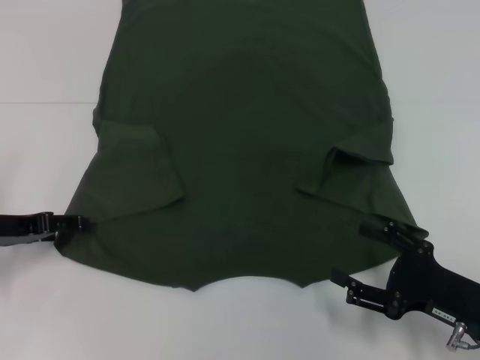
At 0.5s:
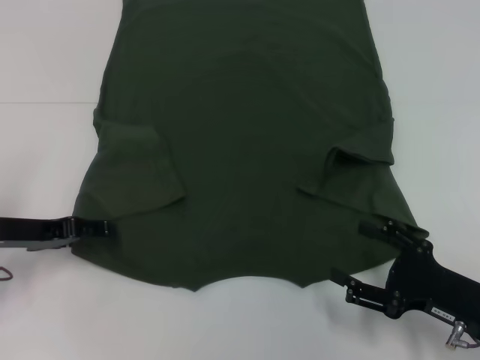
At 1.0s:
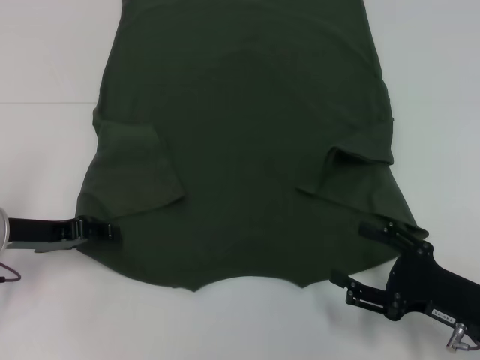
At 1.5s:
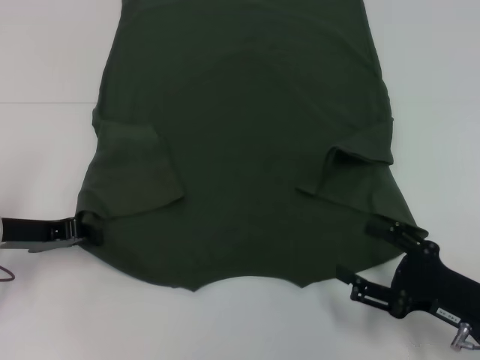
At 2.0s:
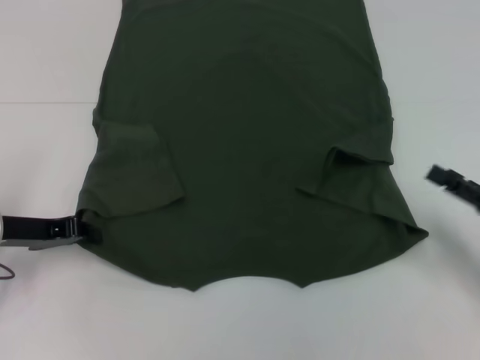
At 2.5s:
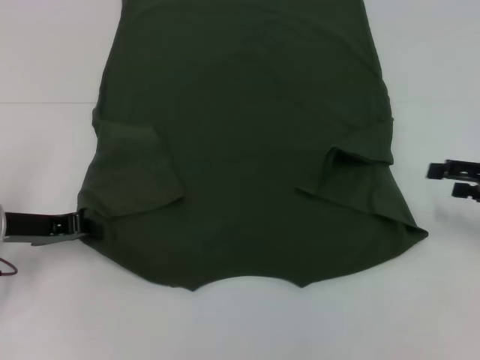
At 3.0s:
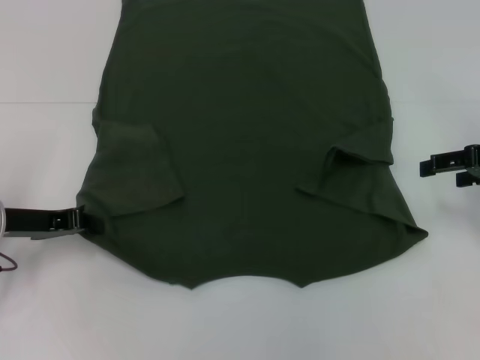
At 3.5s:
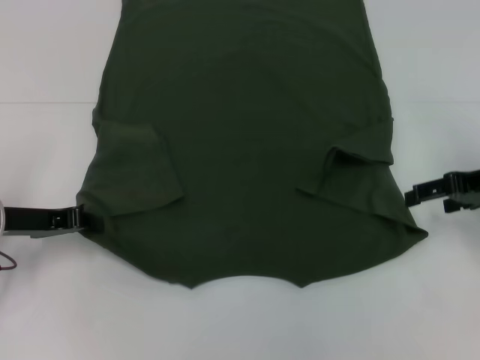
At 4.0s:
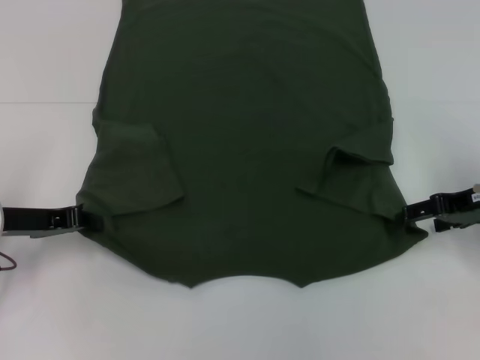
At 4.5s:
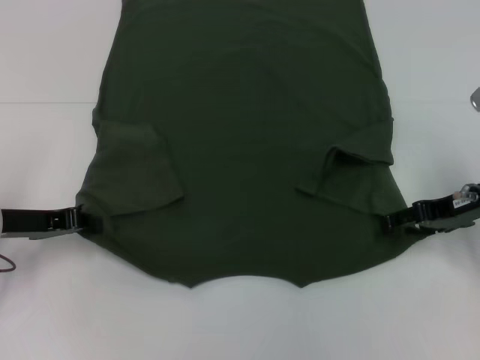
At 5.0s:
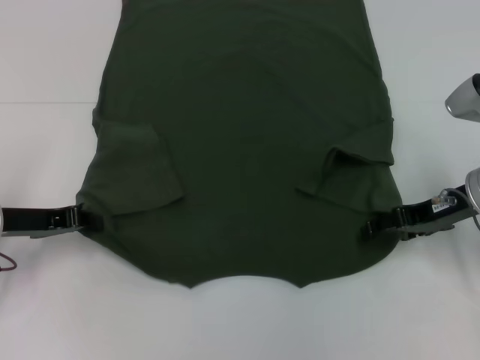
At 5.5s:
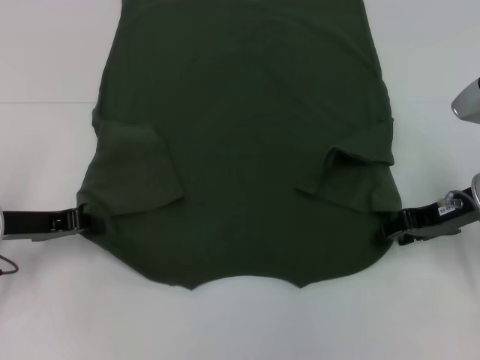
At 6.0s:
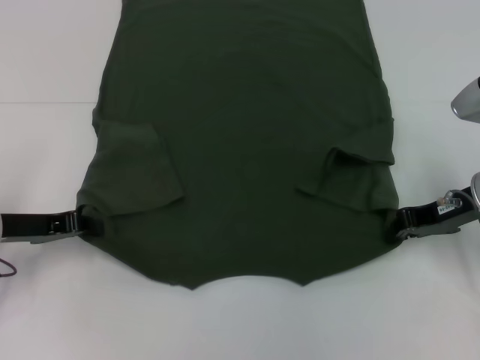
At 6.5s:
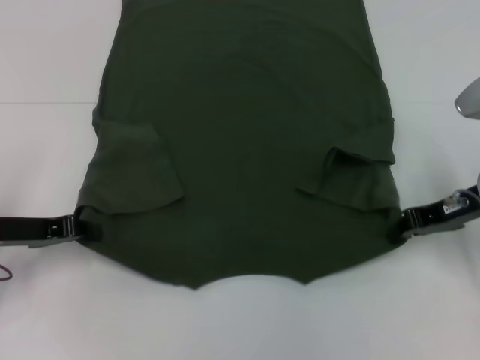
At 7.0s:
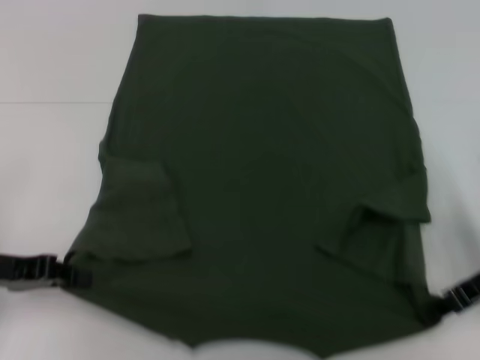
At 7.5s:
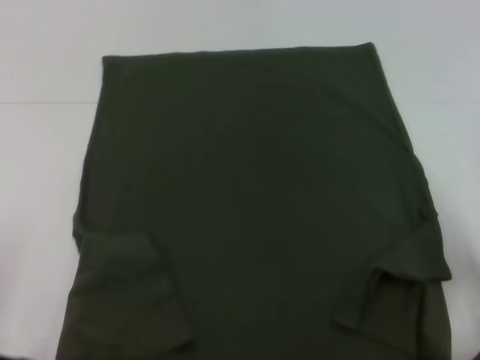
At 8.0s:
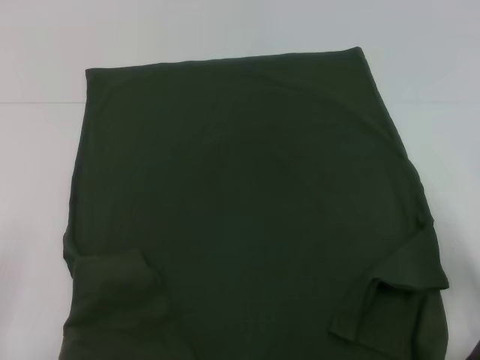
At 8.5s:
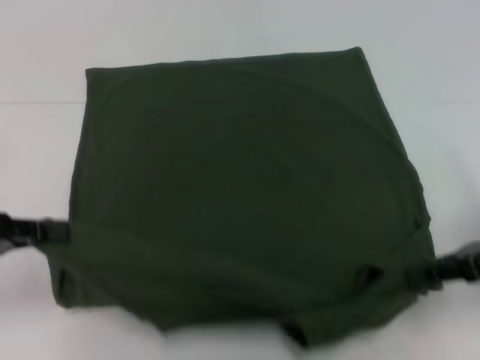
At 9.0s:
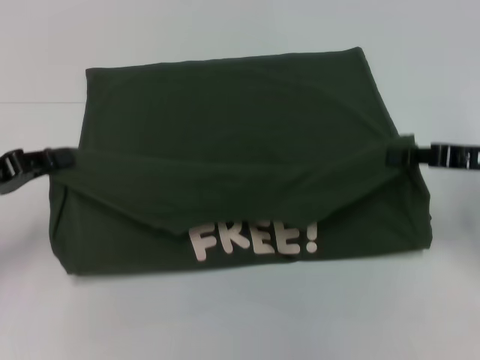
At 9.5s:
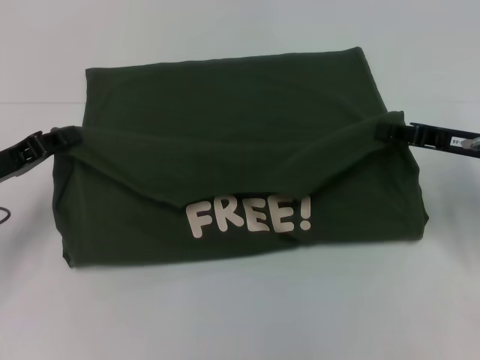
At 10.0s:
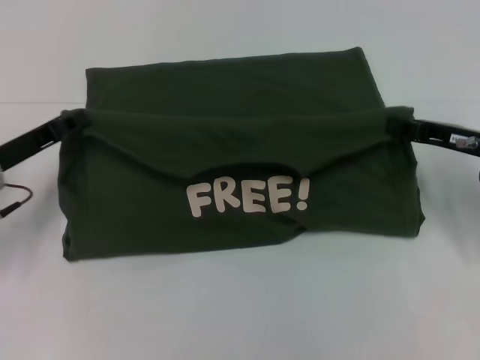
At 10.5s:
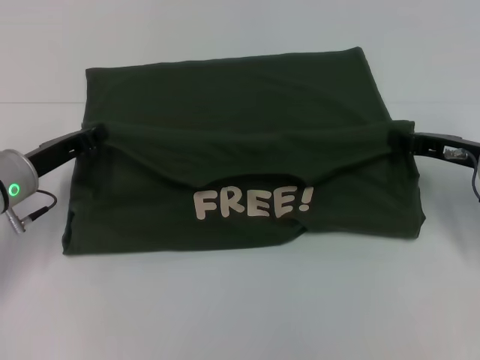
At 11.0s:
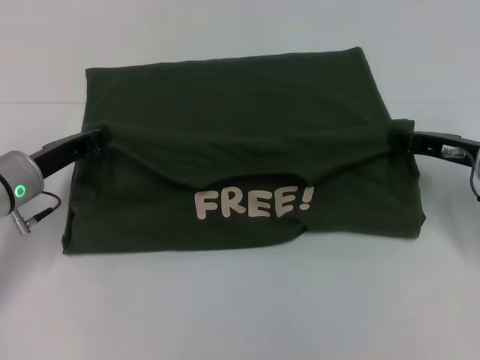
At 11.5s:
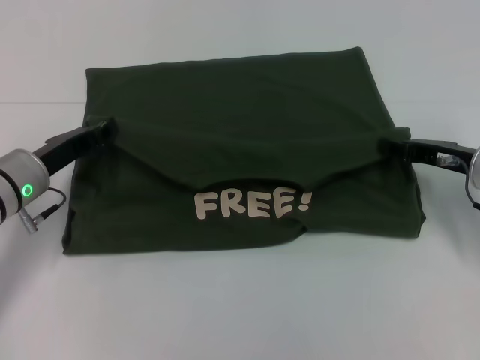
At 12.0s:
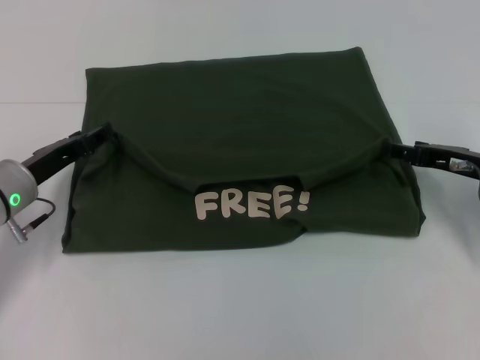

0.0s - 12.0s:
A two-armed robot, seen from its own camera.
Step, 1.5s - 5.0s: Grab the bottom right corner with your right hand.
0.0s - 2.0s: The left gripper closes up; the right gripper moves to the right, some 5 cm.
2.0s - 4.0s: The right gripper heads forward and upward, covering some 15 cm.
4.0s - 6.0s: The right gripper closes up.
6.0s - 8.0s: Both grippers travel together backward, roughly 10 cm.
8.0s - 10.0s: The two grippers go some 10 cm forward.
10.0s - 12.0s: The right gripper opens; the left gripper opens.

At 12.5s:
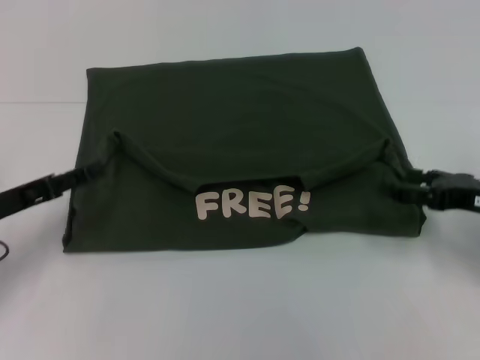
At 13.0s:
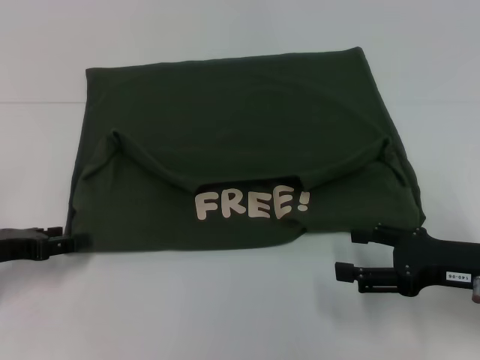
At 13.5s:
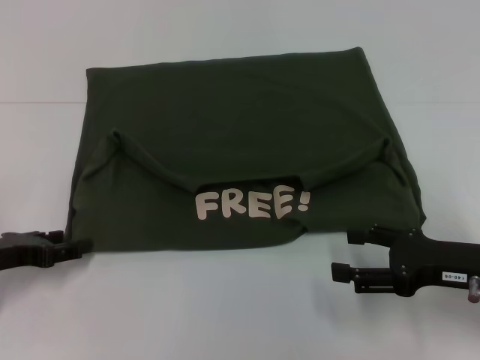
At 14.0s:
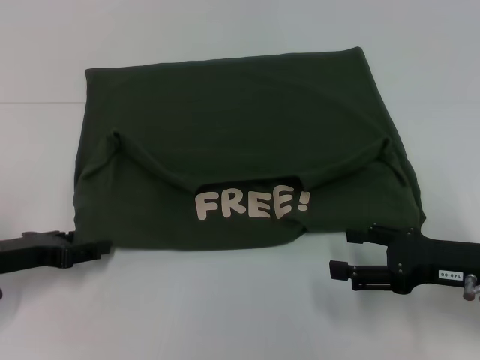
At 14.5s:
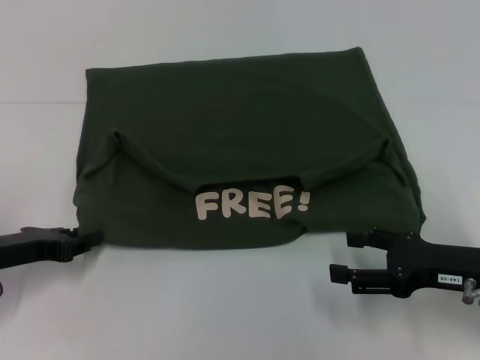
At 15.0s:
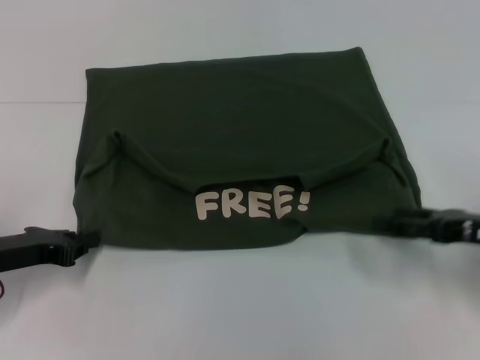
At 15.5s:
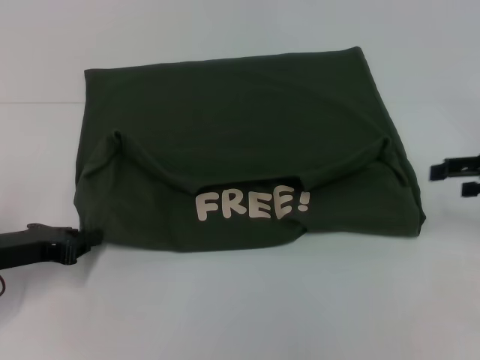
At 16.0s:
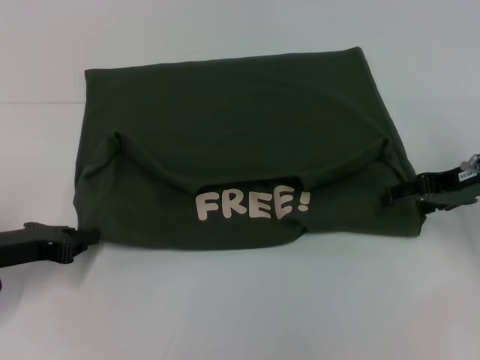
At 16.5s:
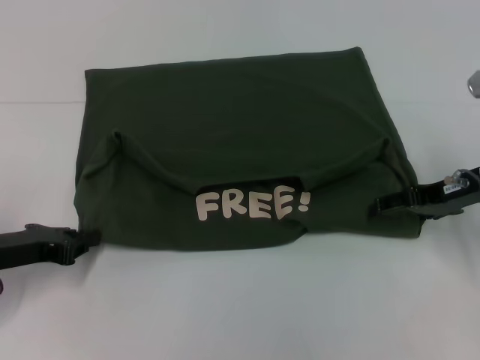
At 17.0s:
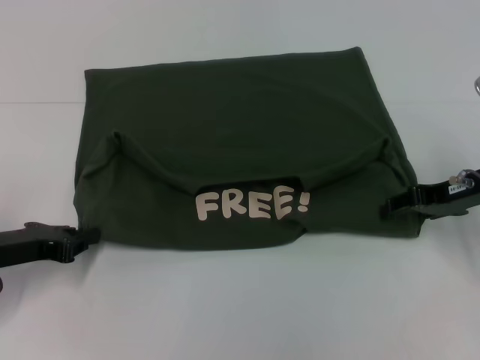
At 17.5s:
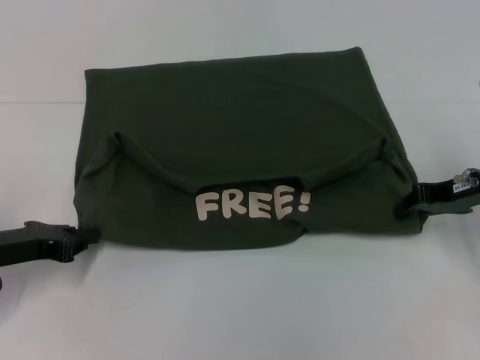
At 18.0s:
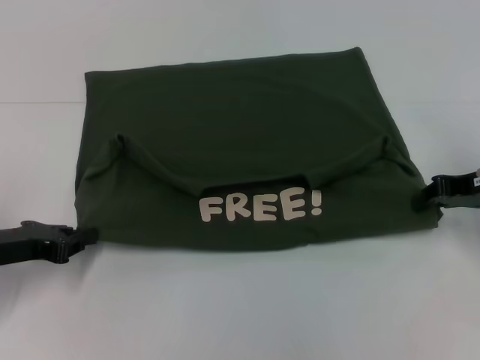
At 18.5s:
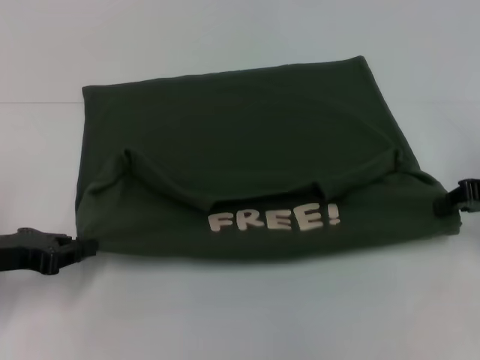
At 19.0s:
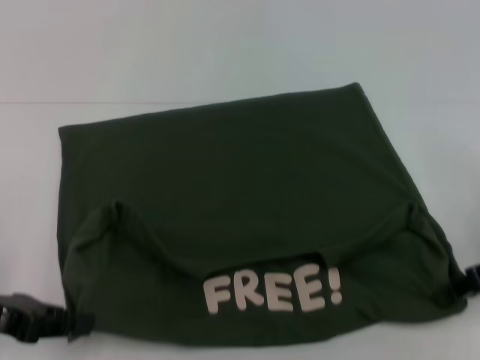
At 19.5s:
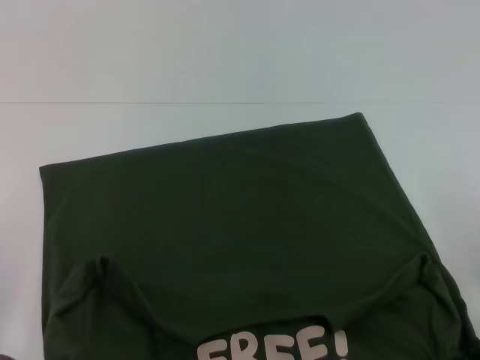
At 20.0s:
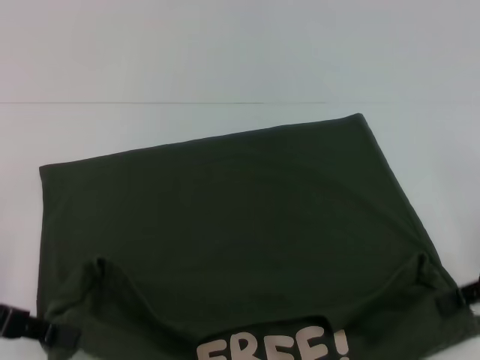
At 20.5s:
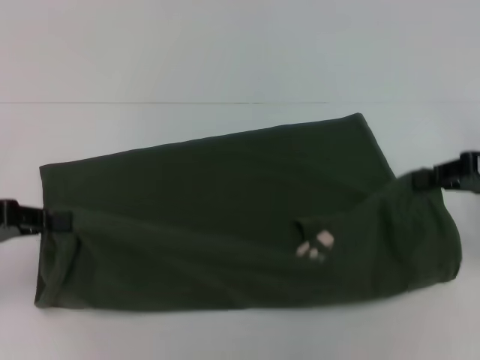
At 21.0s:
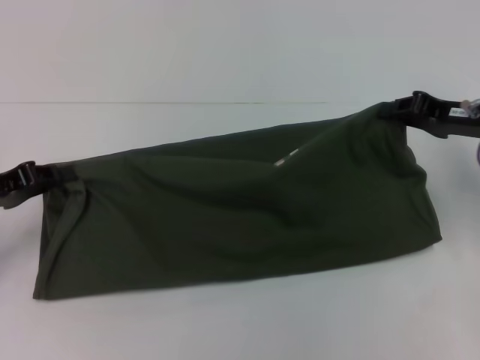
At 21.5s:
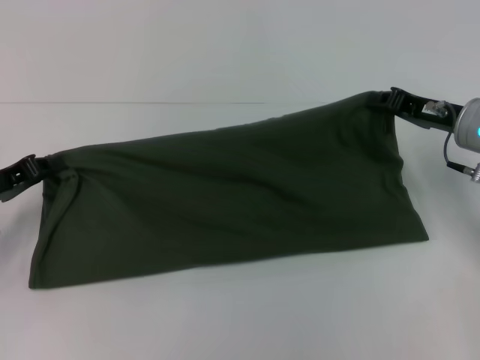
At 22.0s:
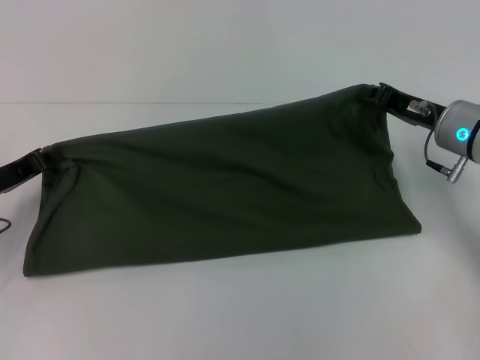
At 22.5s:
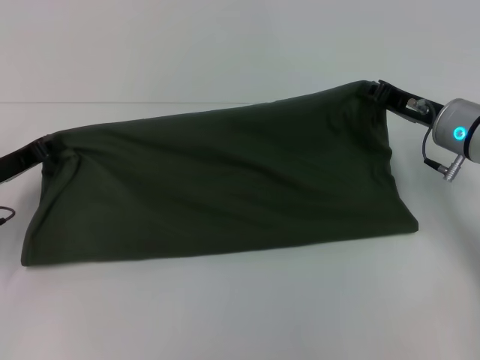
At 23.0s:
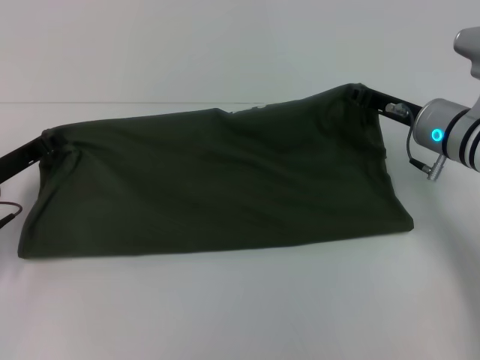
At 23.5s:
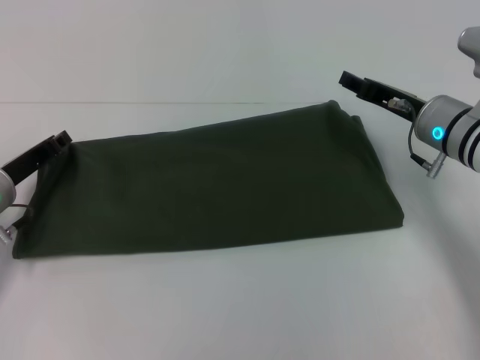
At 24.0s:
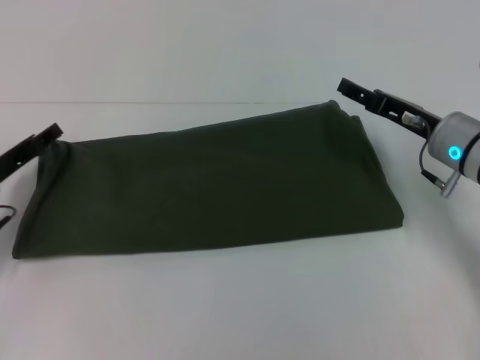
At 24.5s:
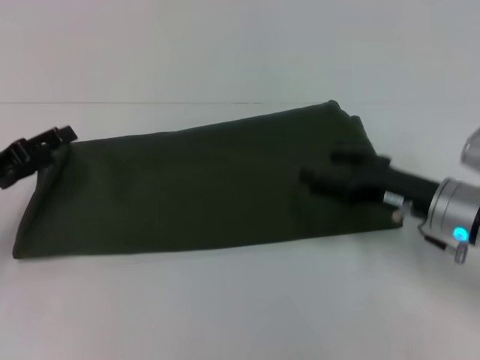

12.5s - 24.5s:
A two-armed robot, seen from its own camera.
Step, 12.5s - 19.5s: Pull the clothes with your left hand.
Step, 12.5s - 19.5s: Pull the clothes with your right hand.
12.5s - 14.5s: The right gripper shifts by about 5 cm.
14.5s - 16.5s: The right gripper shifts roughly 10 cm forward and upward, while the left gripper closes up.
16.5s - 18.5s: The right gripper is displaced to the right by roughly 5 cm, and closes.
18.5s - 20.5s: The left gripper is displaced upward by approximately 5 cm, while the right gripper goes backward and returns, about 10 cm each way.
20.5s - 22.5s: The left gripper travels downward and forward by roughly 10 cm, while the right gripper heads to the left, forward and downward, covering some 15 cm.
22.5s - 24.5s: The right gripper travels backward by some 10 cm, and opens its fingers. Meanwhile the left gripper opens.

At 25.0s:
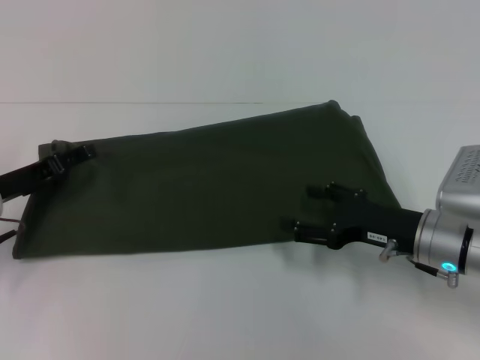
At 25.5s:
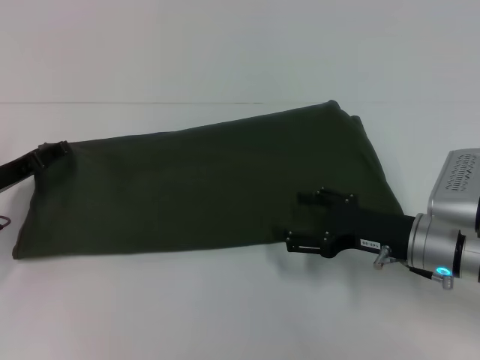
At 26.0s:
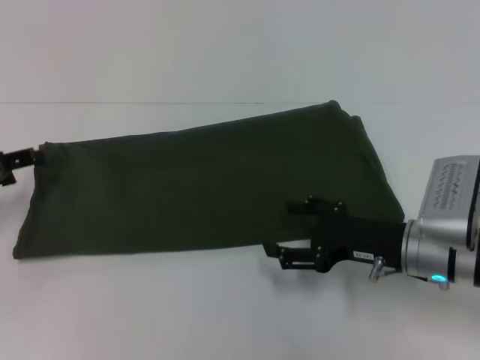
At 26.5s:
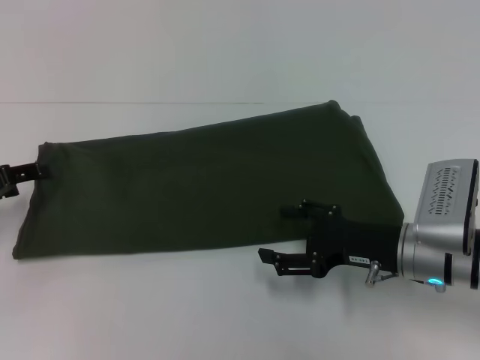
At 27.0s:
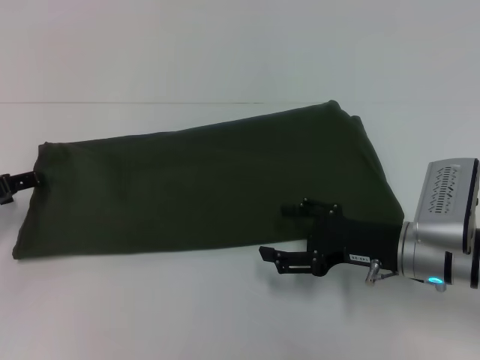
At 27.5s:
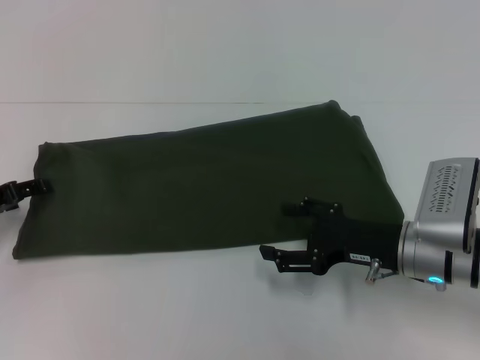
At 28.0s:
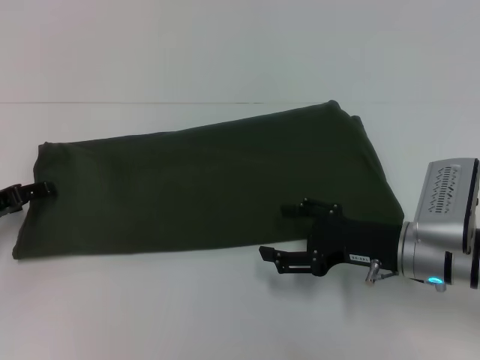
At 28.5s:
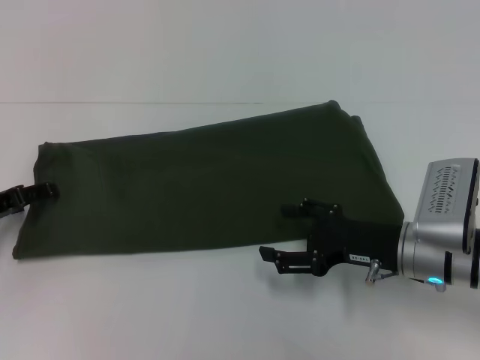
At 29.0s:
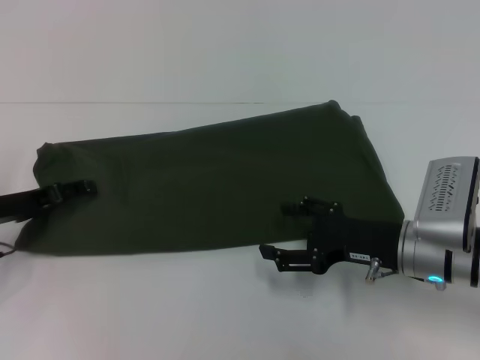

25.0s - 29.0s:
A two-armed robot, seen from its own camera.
25.0s - 27.0s: The left gripper travels to the left by about 5 cm.
27.0s - 29.0s: There are only small adjustments of the grippers.
